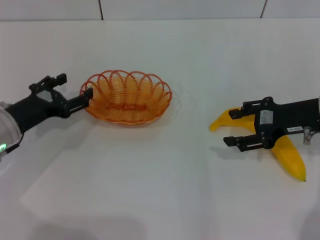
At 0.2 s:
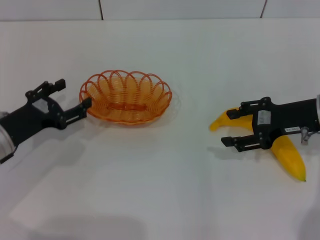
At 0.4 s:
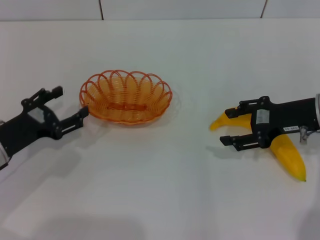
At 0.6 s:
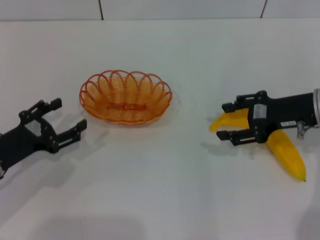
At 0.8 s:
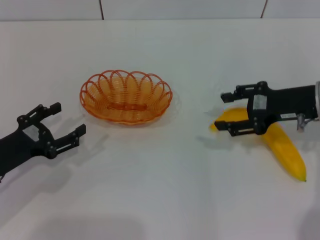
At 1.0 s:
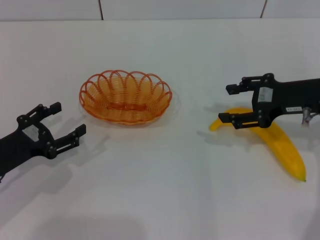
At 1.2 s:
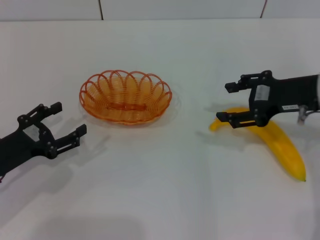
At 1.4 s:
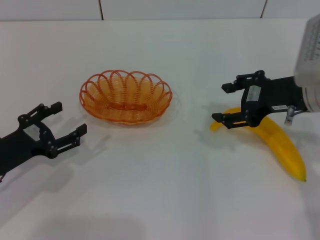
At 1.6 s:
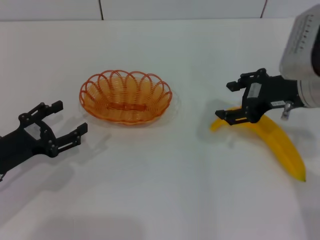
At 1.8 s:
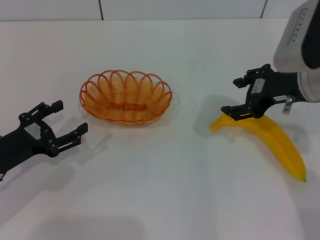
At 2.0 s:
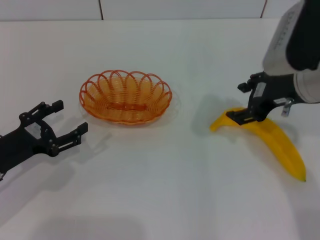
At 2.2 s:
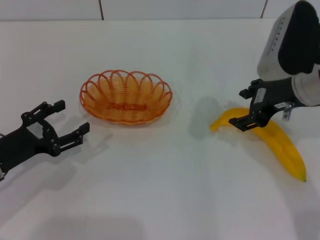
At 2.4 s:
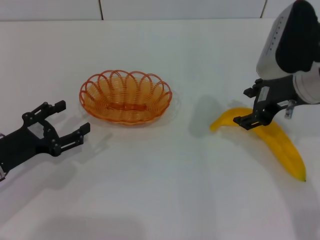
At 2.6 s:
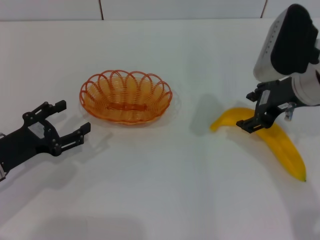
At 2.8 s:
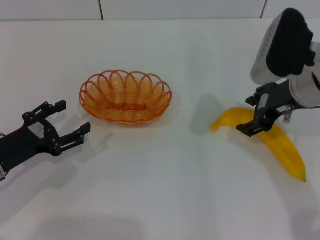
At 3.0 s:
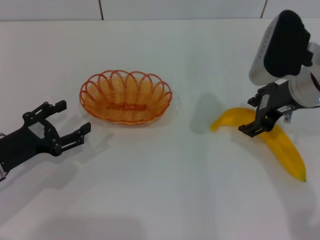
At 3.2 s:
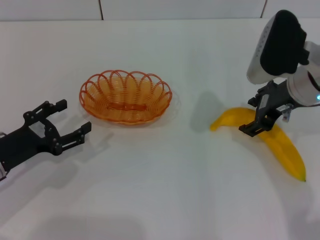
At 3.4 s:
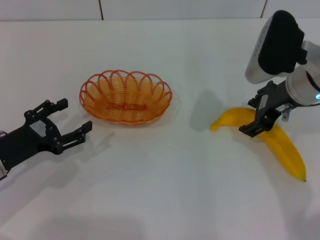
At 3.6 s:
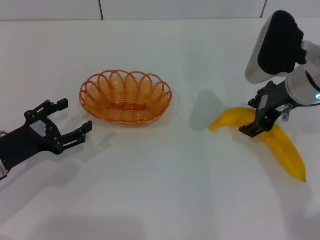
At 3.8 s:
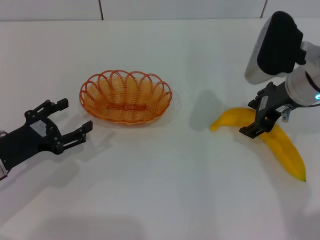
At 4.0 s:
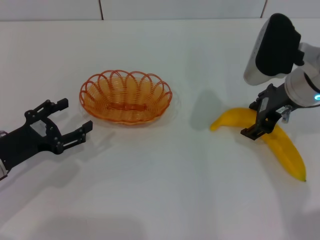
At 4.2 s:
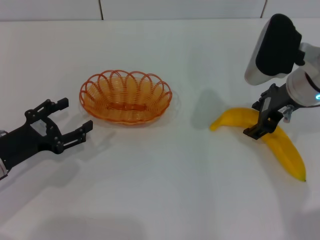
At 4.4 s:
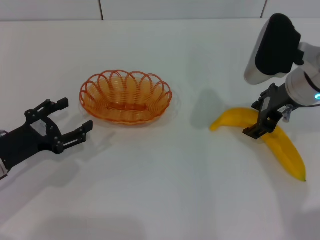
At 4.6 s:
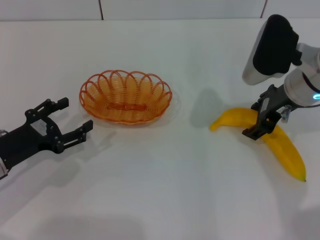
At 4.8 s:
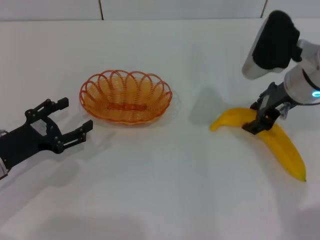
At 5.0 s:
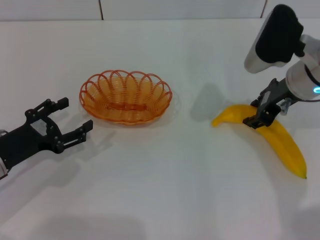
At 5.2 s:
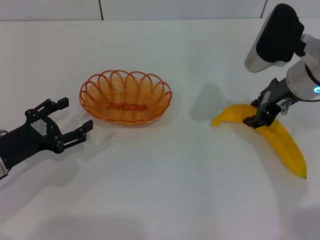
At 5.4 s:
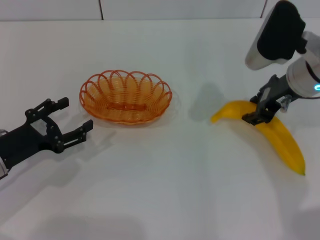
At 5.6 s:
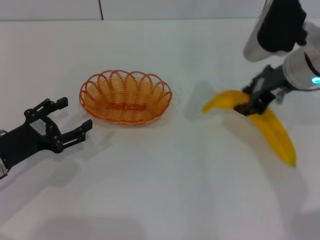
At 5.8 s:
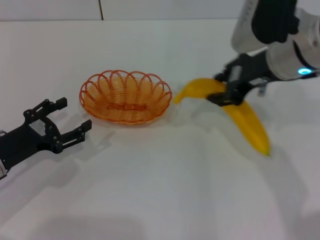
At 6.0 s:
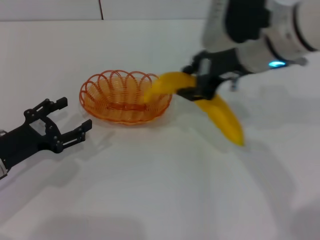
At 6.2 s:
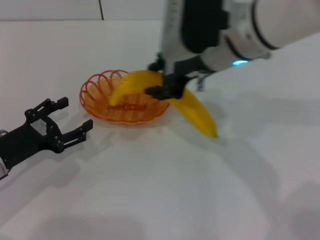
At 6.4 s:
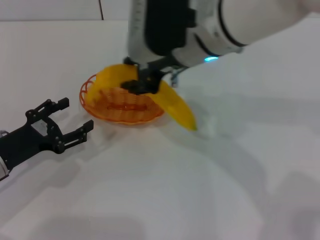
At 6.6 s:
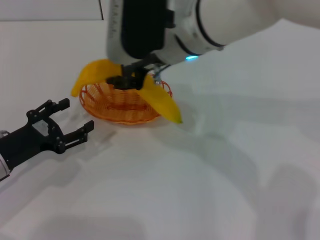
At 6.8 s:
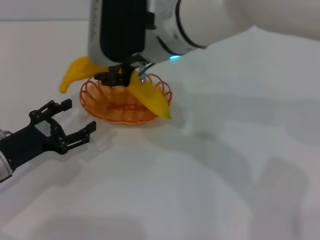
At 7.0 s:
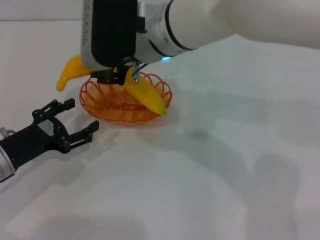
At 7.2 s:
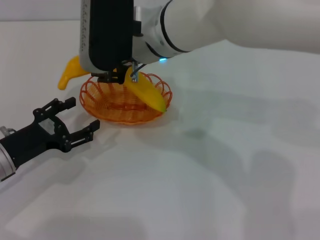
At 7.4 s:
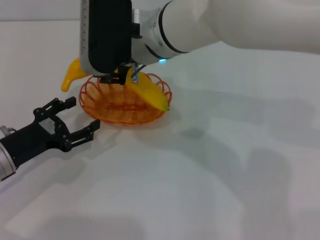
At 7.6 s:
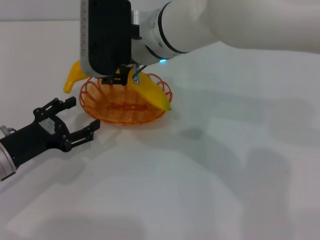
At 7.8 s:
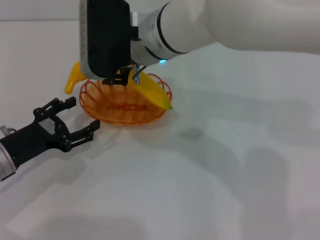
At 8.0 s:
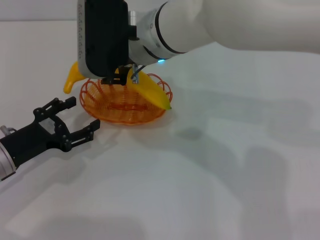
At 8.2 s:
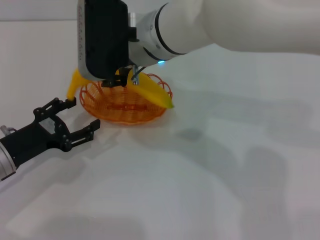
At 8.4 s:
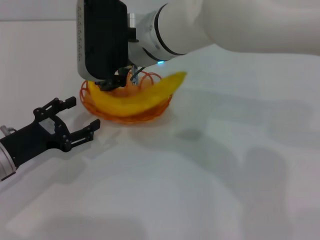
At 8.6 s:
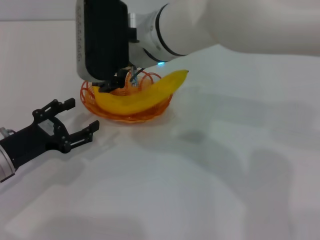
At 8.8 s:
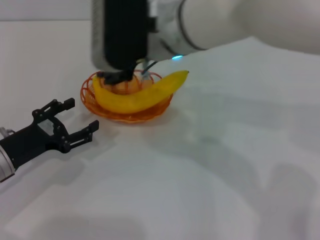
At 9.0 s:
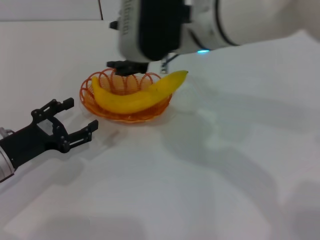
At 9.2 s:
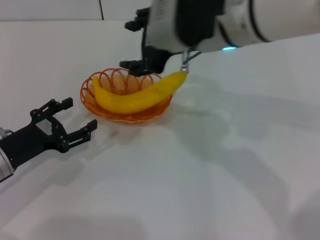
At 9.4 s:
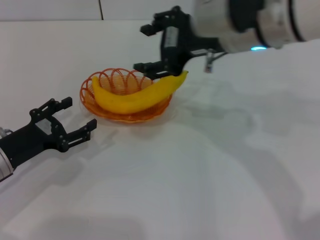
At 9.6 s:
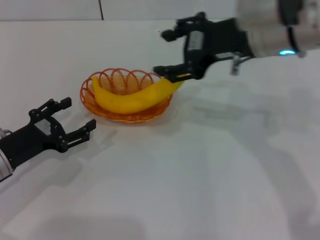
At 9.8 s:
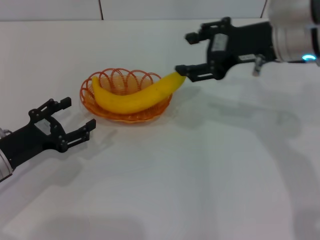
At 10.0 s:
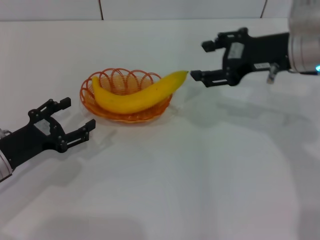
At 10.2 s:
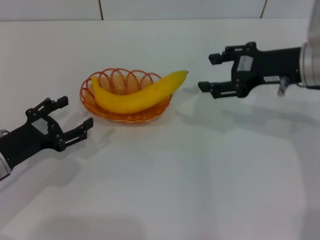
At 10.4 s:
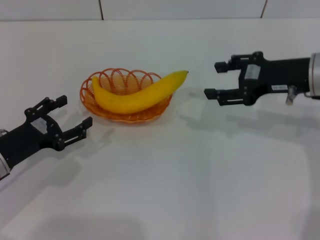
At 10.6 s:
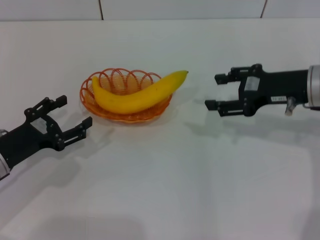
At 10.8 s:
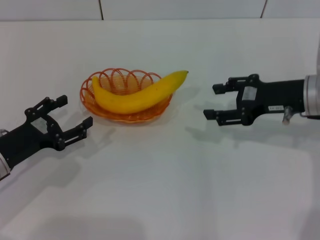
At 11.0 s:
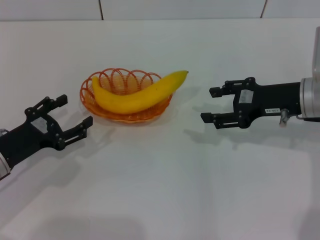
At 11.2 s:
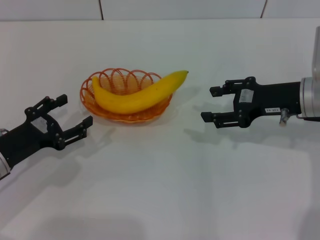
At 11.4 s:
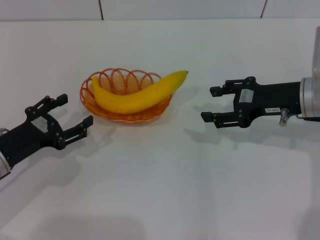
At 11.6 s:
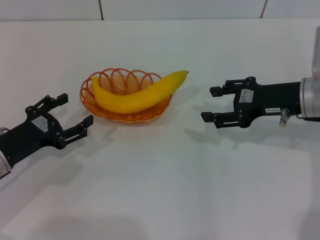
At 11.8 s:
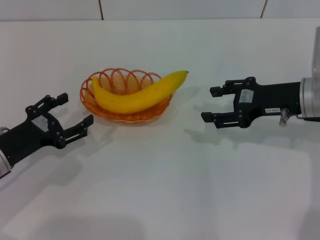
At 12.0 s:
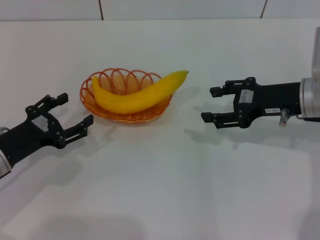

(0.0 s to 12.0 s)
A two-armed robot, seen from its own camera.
Step, 0.6 s - 5.6 s: Pick up the banana with the right gripper.
Step, 5.8 s - 8.6 s: Place the banana into the basket with the right gripper.
0.0 s - 1.6 s: The left gripper is displaced backward by roughly 5 cm, while the right gripper heads upward and to the left, covering approximately 10 cm.
3.0 s - 4.4 s: The grippers stay close to where they were, moving slightly.
4.4 s - 6.0 s: The right gripper heads to the left and upward, covering about 10 cm, and closes its fingers.
6.0 s - 7.6 s: The right gripper heads to the left, covering about 15 cm.
7.6 s - 9.0 s: The right gripper is displaced to the right by roughly 5 cm, and opens up.
9.0 s - 10.4 s: The right gripper moves to the right and downward, roughly 20 cm.
10.4 s - 12.0 s: The grippers make only small movements.
